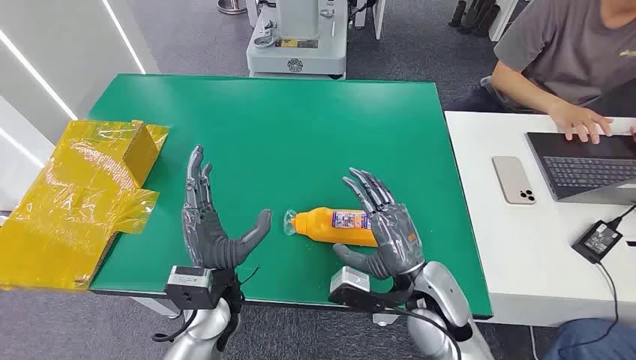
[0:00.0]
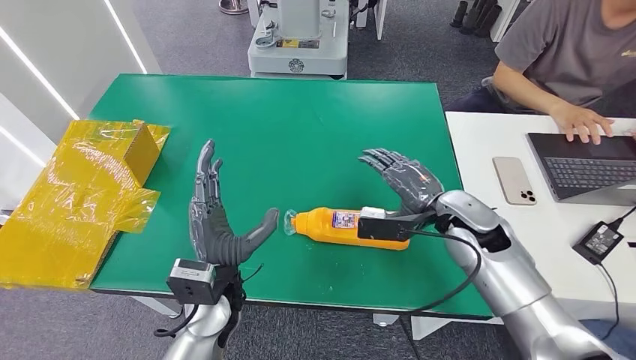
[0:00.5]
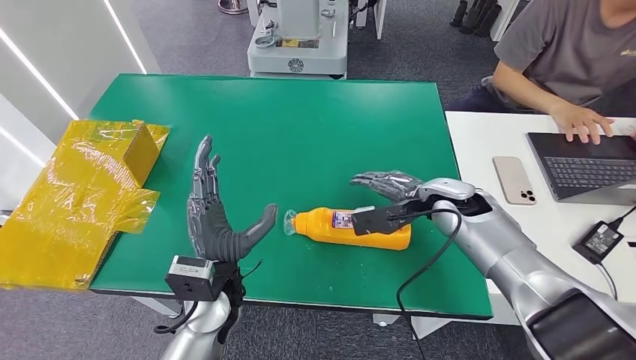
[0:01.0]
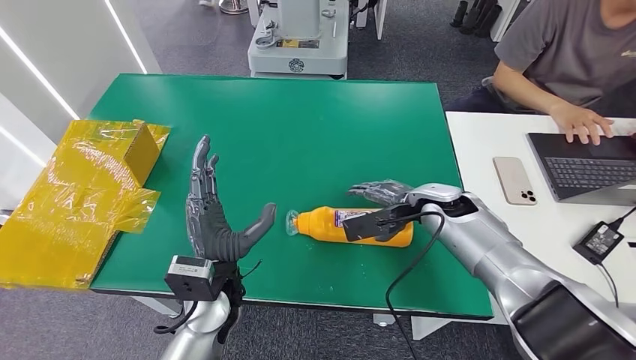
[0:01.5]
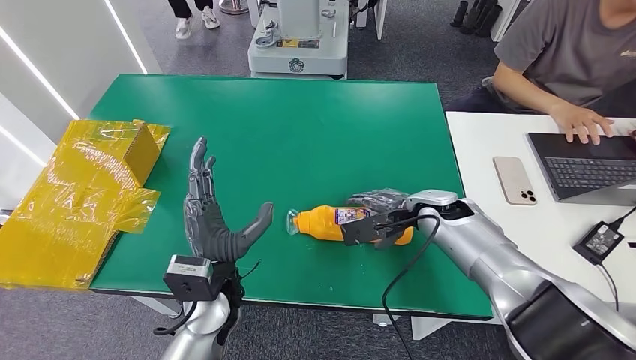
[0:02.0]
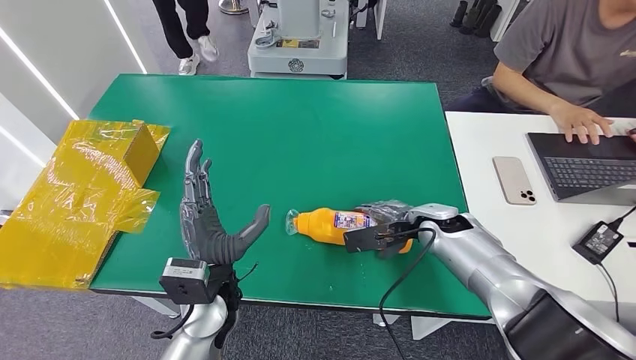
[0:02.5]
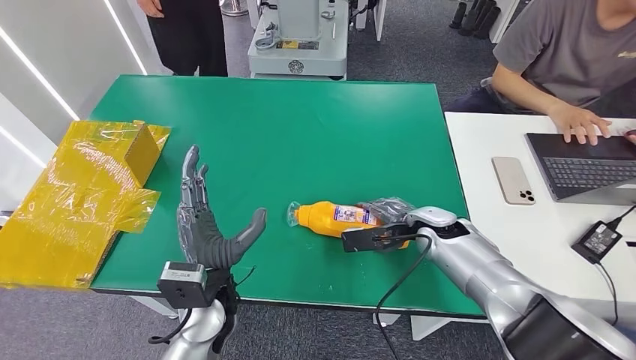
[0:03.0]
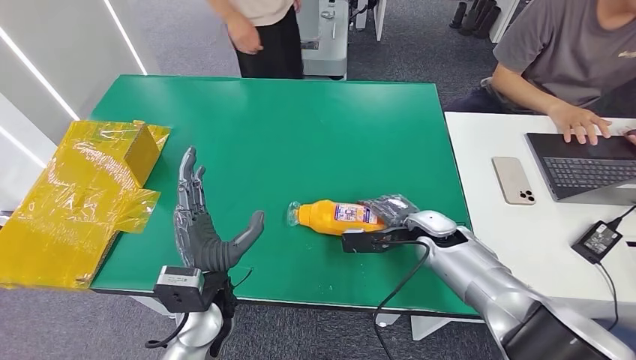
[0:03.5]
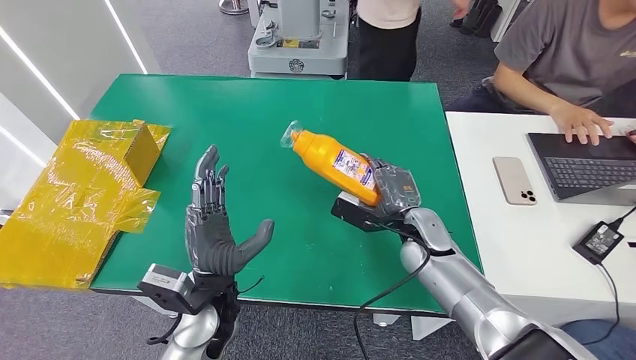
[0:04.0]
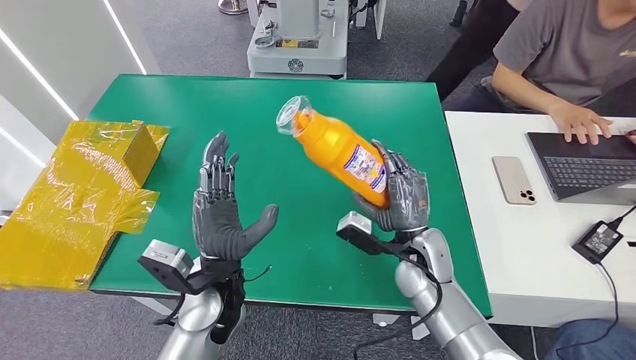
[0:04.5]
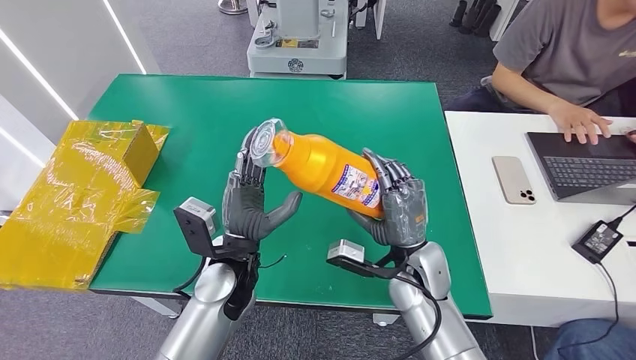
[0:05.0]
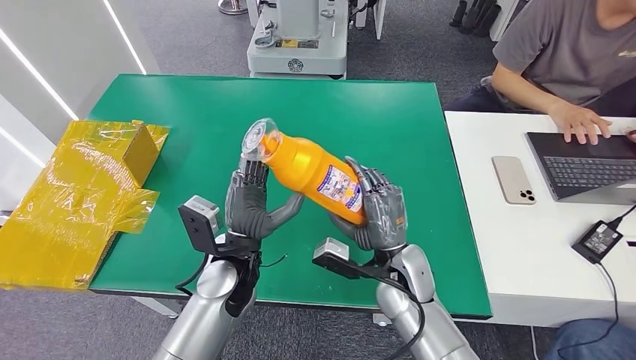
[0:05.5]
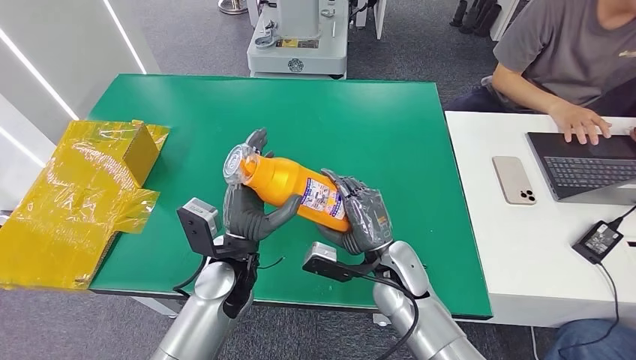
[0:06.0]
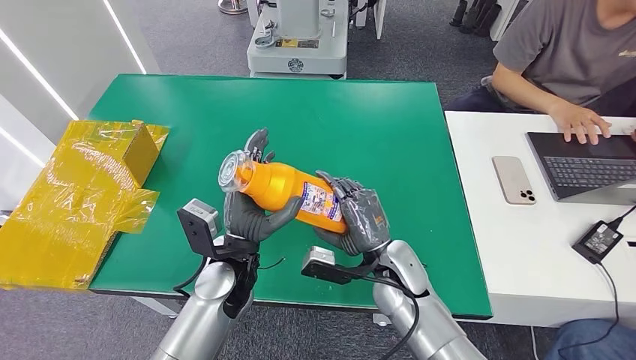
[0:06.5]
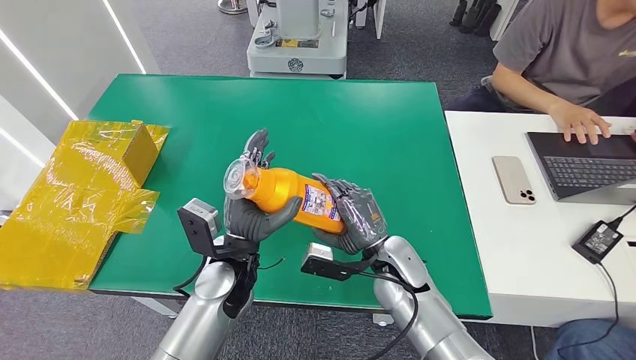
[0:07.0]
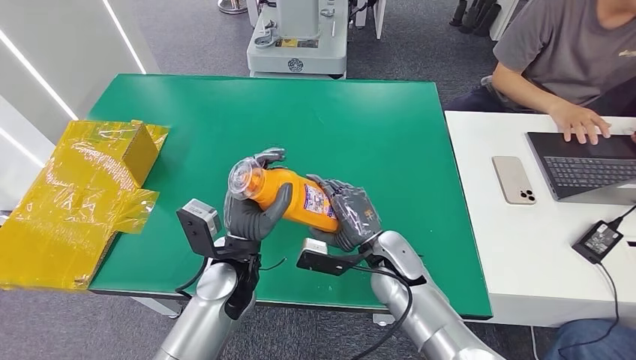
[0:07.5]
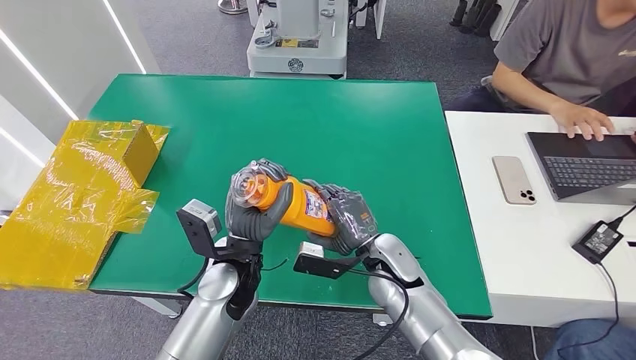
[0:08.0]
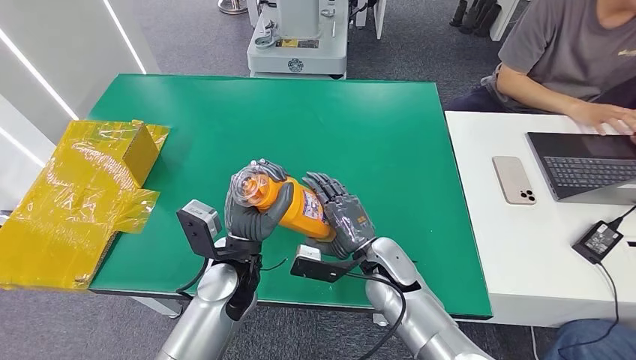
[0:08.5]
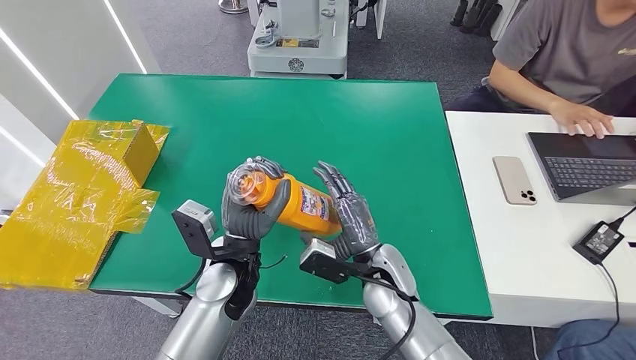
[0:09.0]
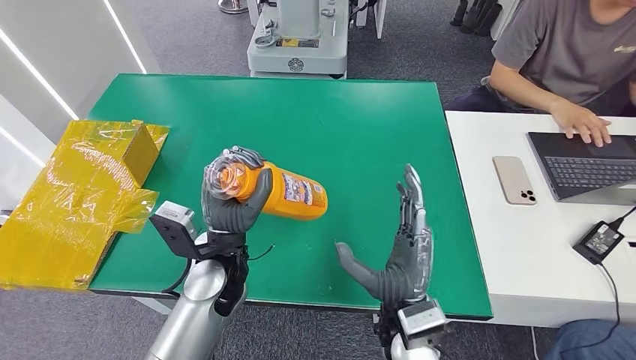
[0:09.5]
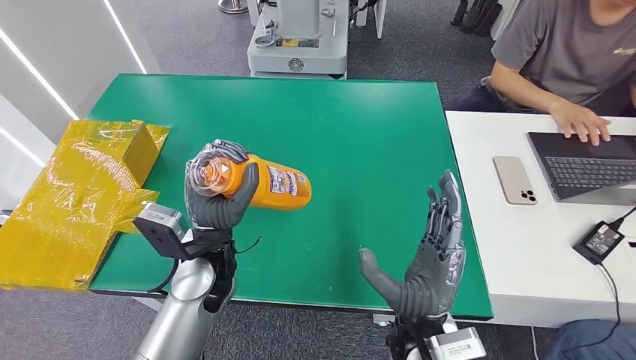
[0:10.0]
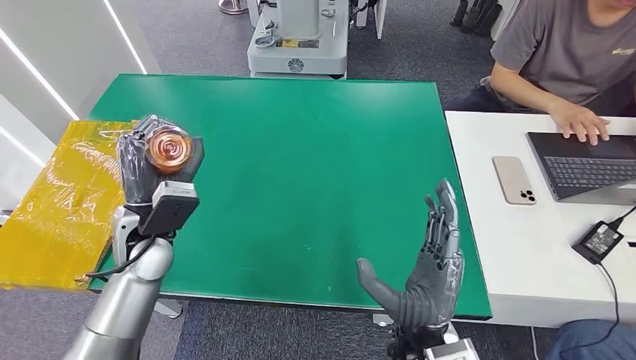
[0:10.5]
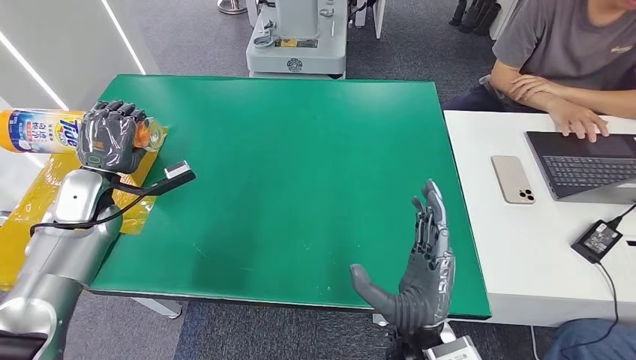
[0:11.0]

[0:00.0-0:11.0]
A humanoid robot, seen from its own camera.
Step, 0:00.0 to 0:04.5: Pick up the bottle from the table.
0:02.0 to 0:03.5: The right hand shifts by some 5 cm.
0:07.5 to 0:09.0: The hands stay close to where they were, moving slightly.

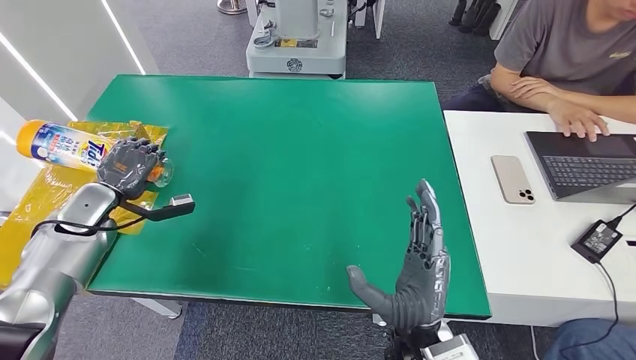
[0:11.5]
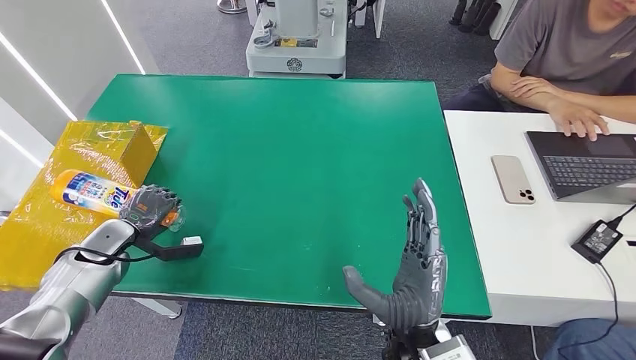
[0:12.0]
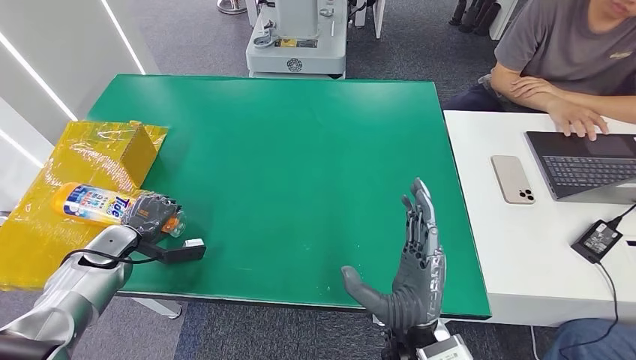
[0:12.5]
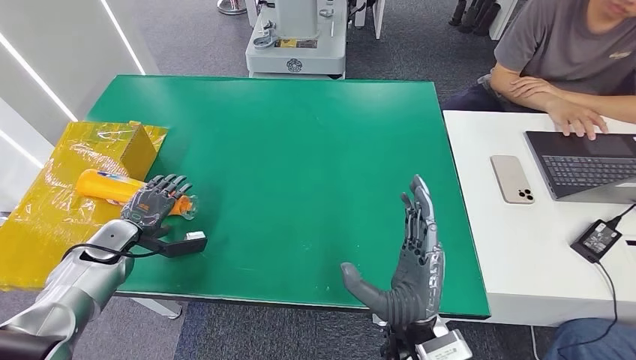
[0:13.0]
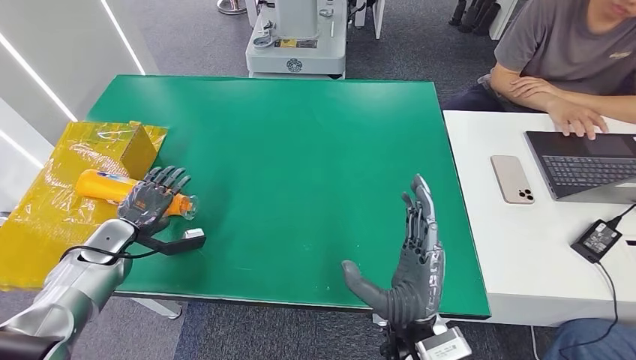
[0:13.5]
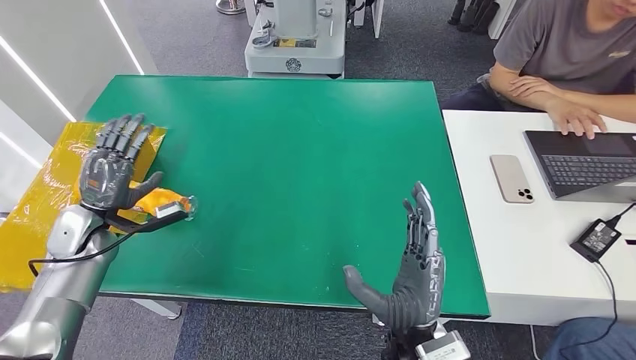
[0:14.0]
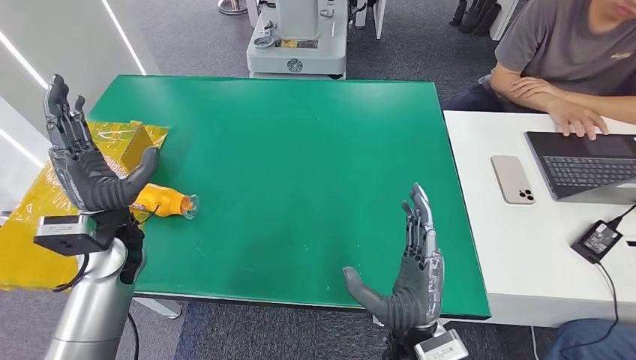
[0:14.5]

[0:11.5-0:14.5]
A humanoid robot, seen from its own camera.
Step, 0:11.5 to 0:14.5: Turn the bottle to the front side.
0:11.5 to 0:13.0: The left hand is displaced downward by about 10 cm.
0:13.0 to 0:14.5: The left hand goes roughly 15 cm upward and to the right.
